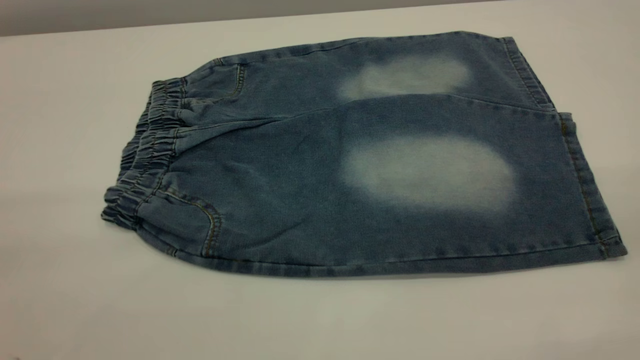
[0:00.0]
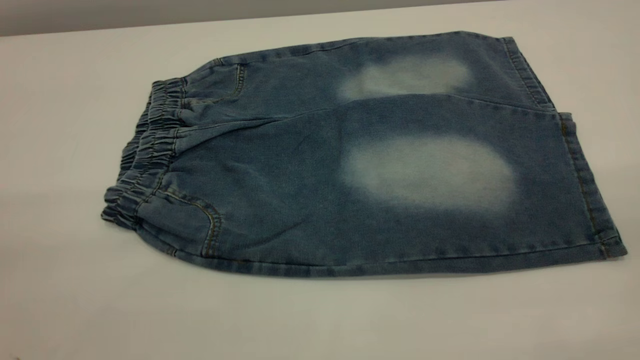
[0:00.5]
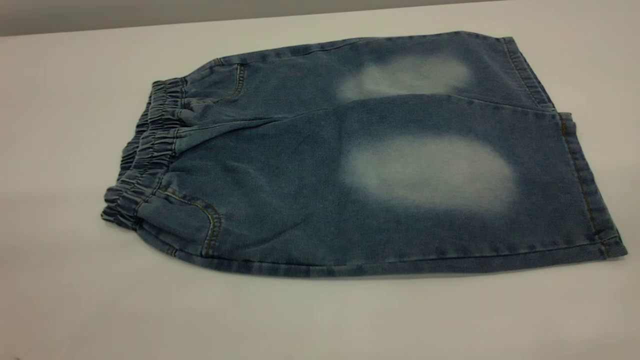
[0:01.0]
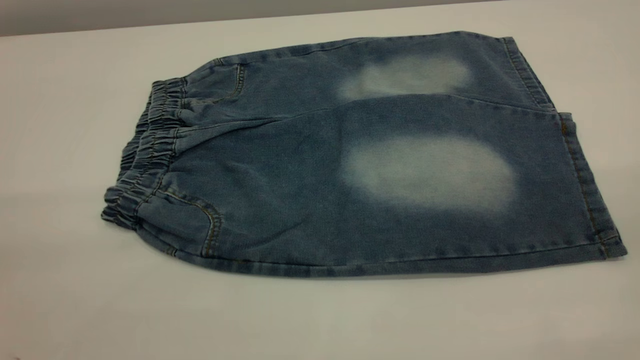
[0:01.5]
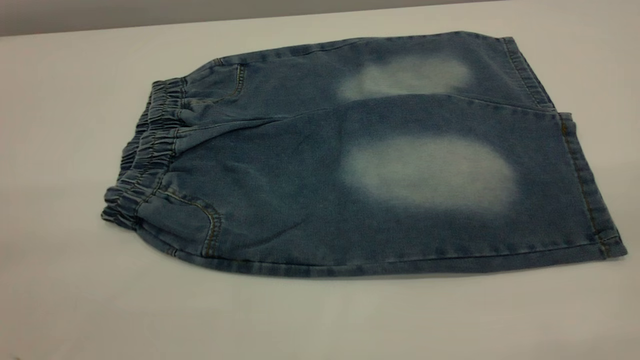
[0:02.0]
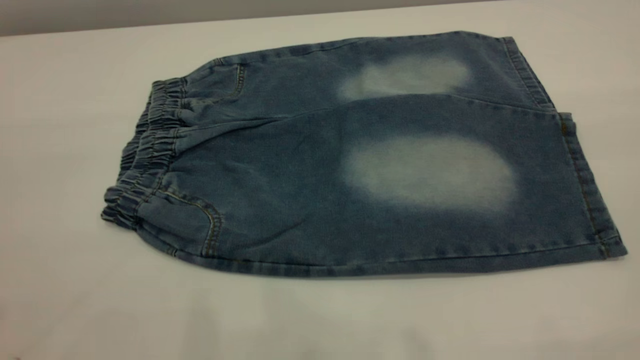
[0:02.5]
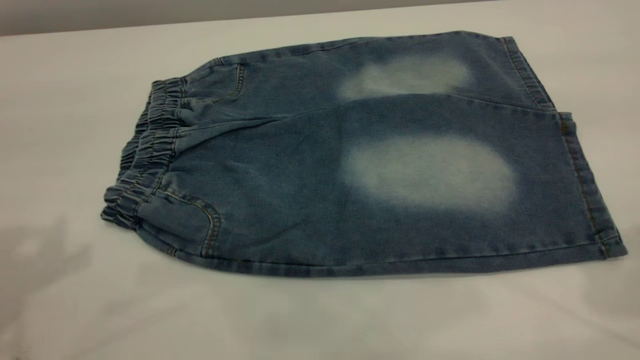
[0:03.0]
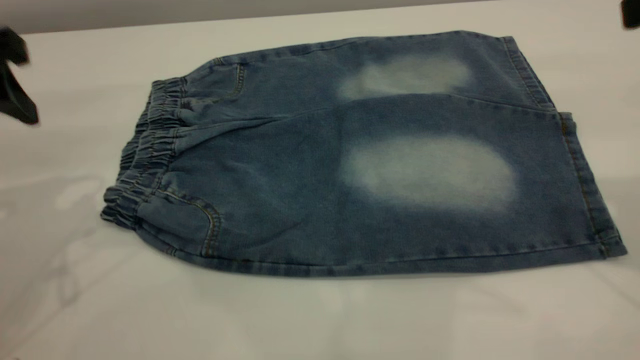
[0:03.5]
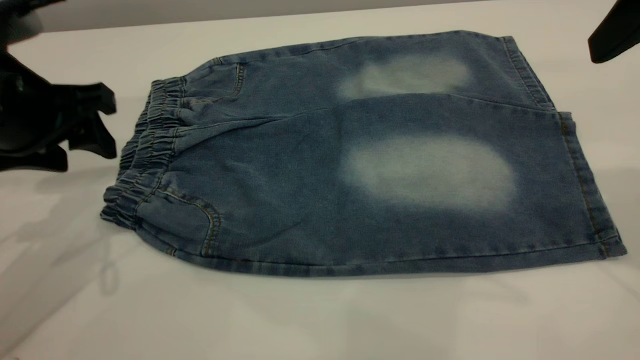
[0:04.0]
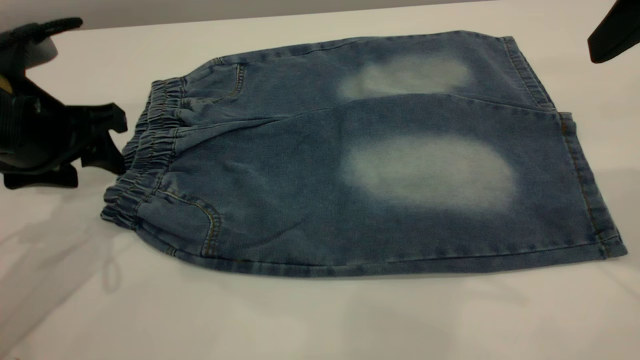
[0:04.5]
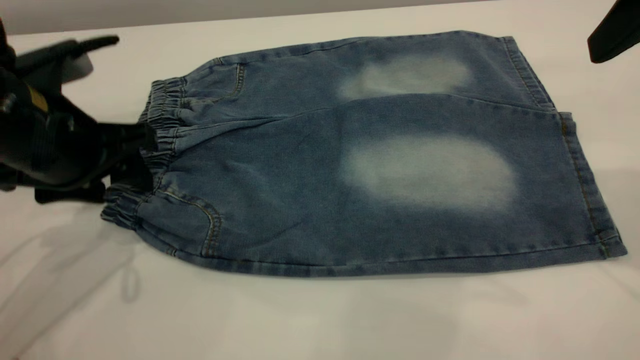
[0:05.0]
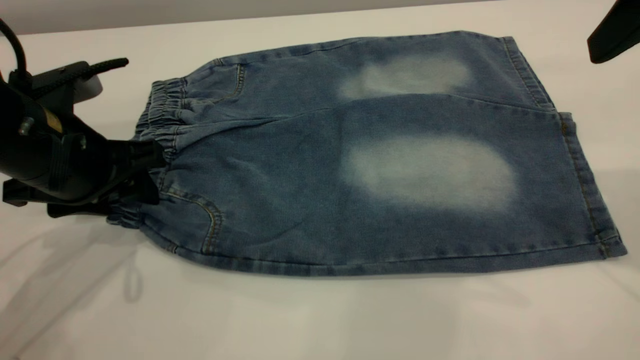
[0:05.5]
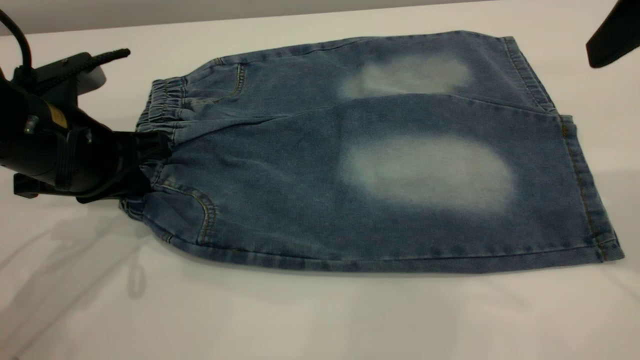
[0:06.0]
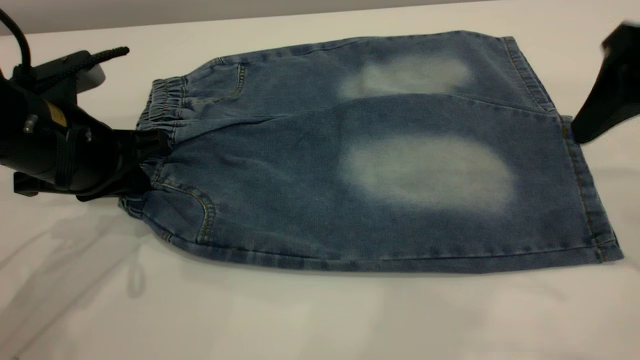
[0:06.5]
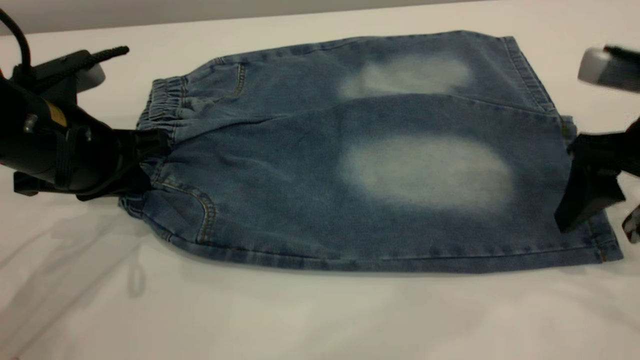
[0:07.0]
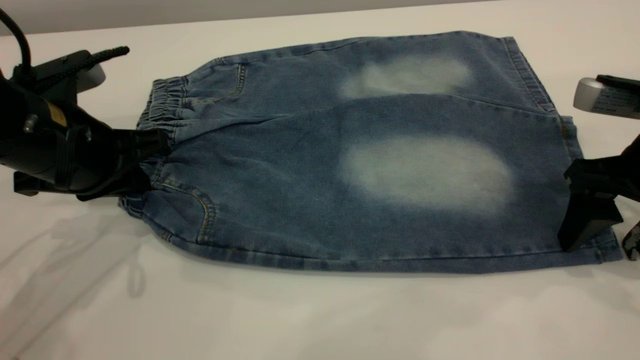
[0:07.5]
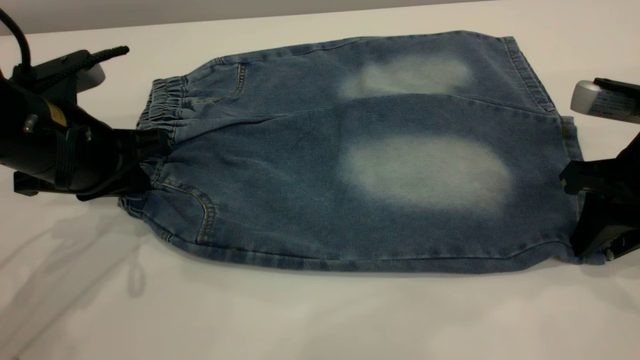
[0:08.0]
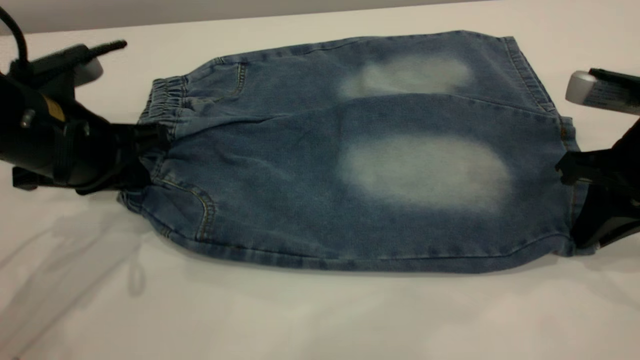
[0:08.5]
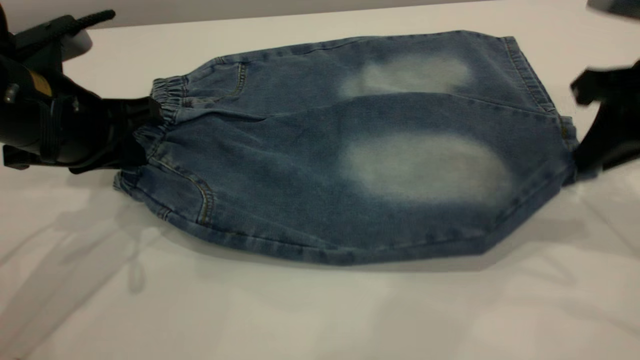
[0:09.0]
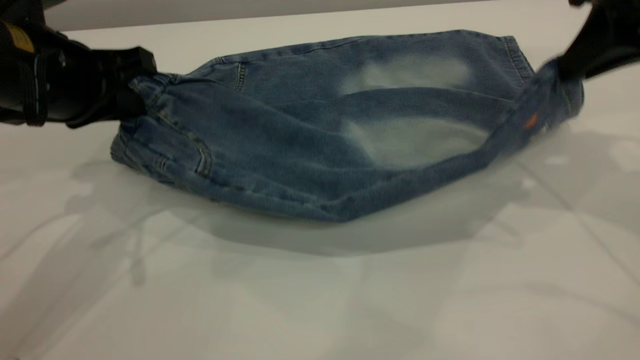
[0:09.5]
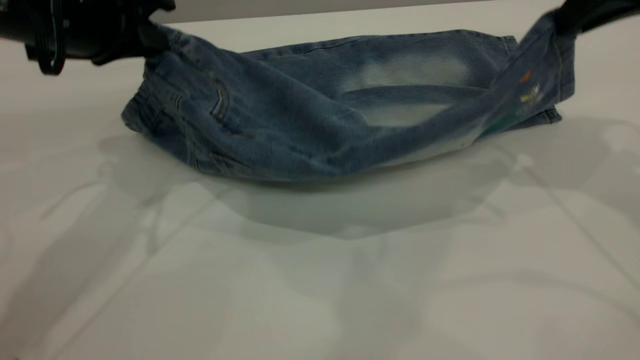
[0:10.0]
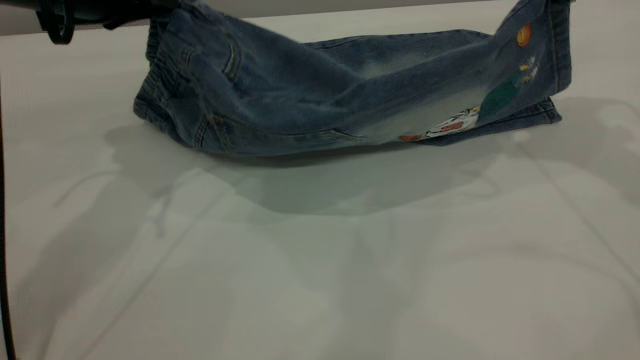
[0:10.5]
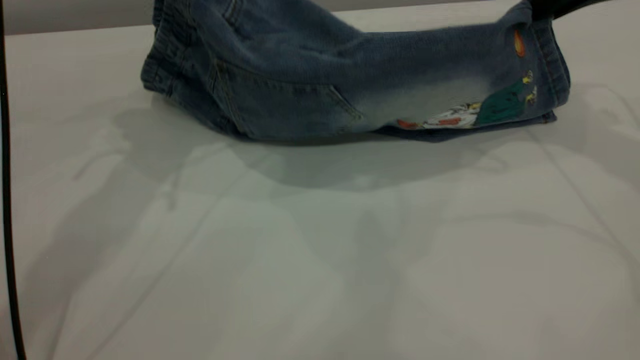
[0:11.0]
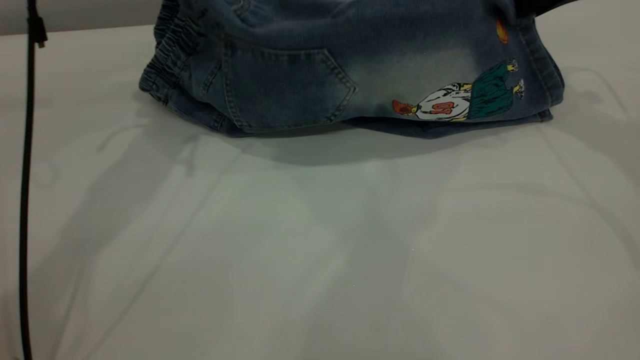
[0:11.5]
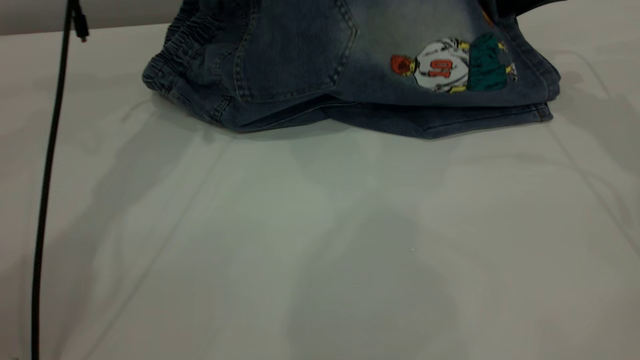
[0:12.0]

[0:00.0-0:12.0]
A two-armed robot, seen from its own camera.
0:00.0 to 0:02.0: Neither gripper changes place.
0:02.0 to 0:04.0: The left gripper moves forward and downward, about 35 cm, while the right gripper goes about 25 cm forward.
0:04.0 to 0:06.0: The left gripper is displaced downward by roughly 5 cm, and closes its fingers.
0:06.0 to 0:08.0: The right gripper goes approximately 15 cm downward, and closes its fingers.
0:08.0 to 0:10.0: The right gripper moves upward and forward, approximately 15 cm, while the left gripper is displaced upward by about 10 cm.
0:10.0 to 0:12.0: The left gripper is displaced forward by some 15 cm. Meanwhile the right gripper travels forward and downward by approximately 15 cm.

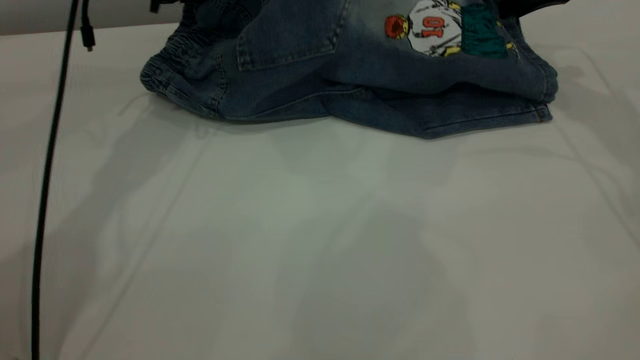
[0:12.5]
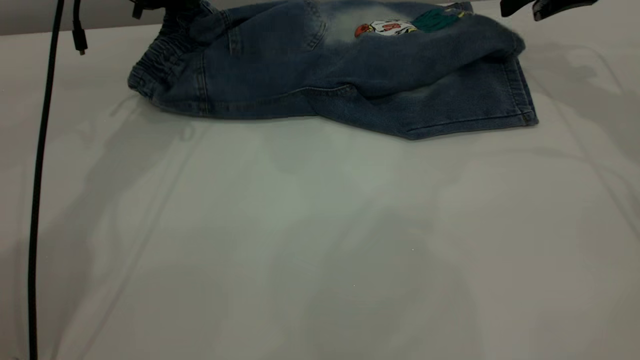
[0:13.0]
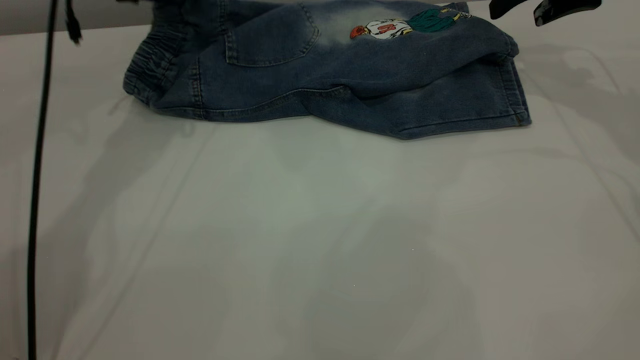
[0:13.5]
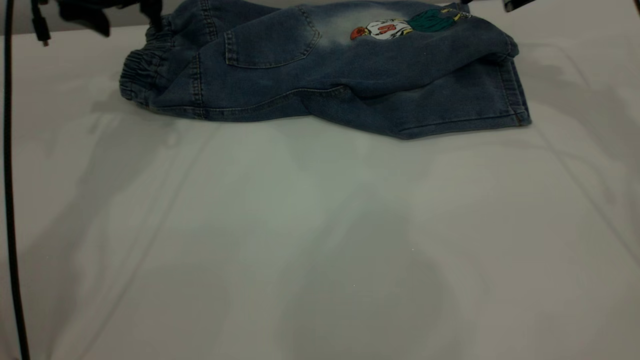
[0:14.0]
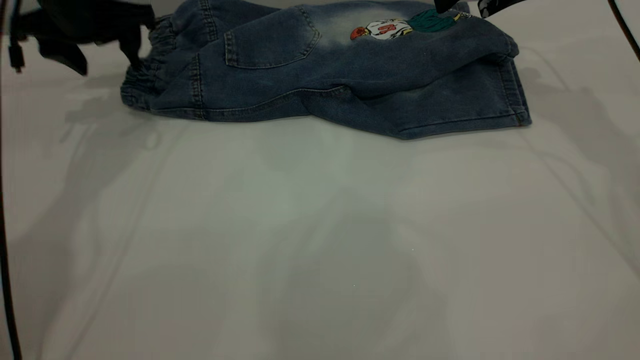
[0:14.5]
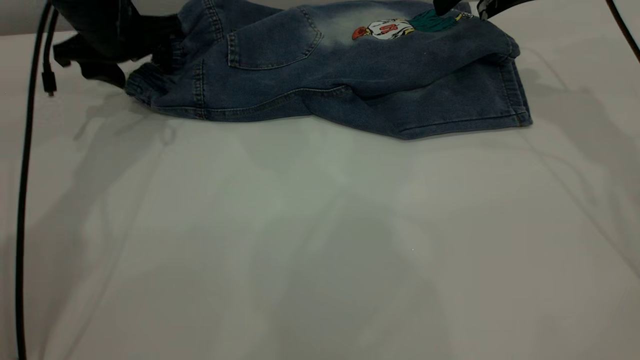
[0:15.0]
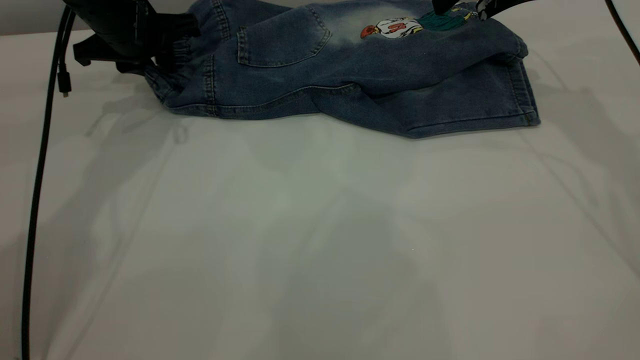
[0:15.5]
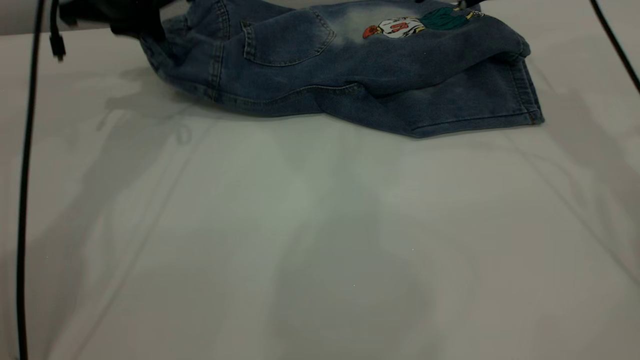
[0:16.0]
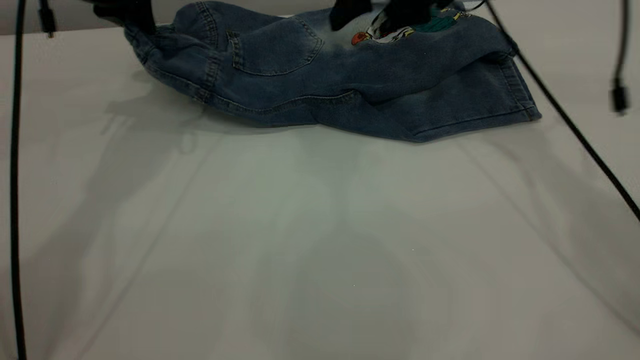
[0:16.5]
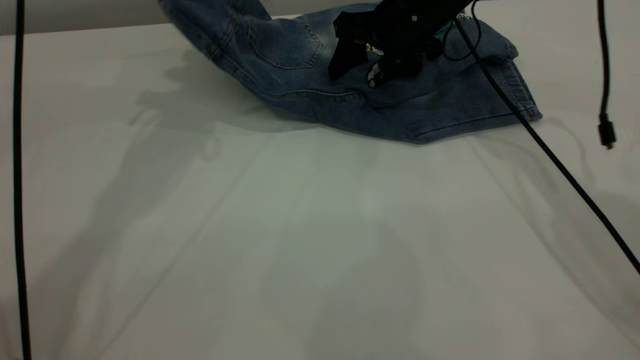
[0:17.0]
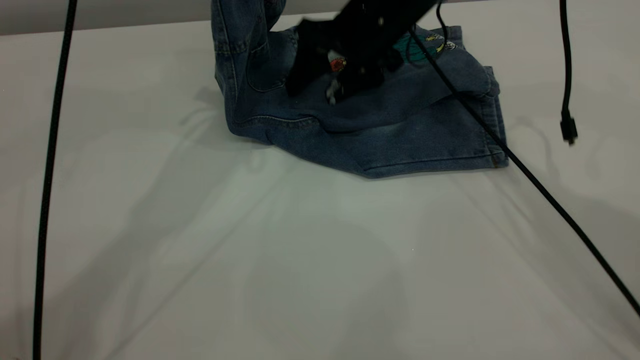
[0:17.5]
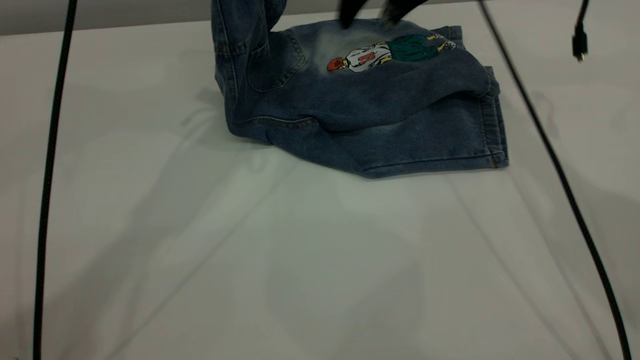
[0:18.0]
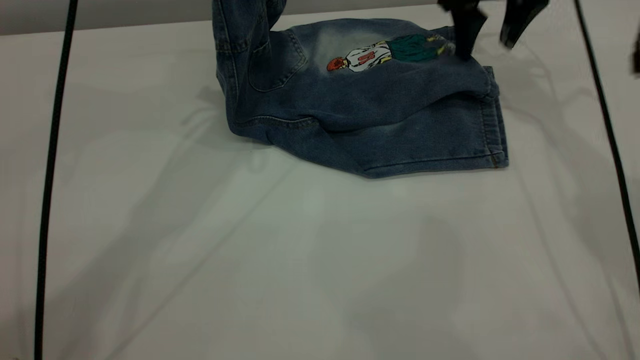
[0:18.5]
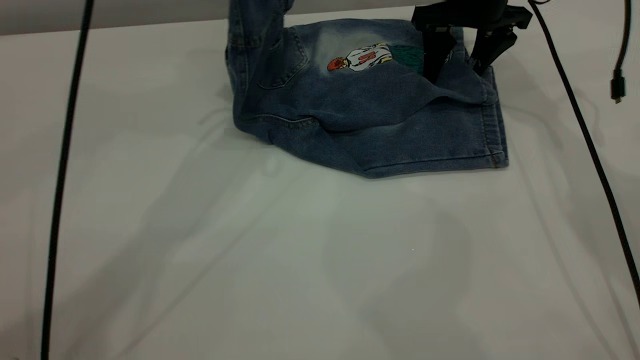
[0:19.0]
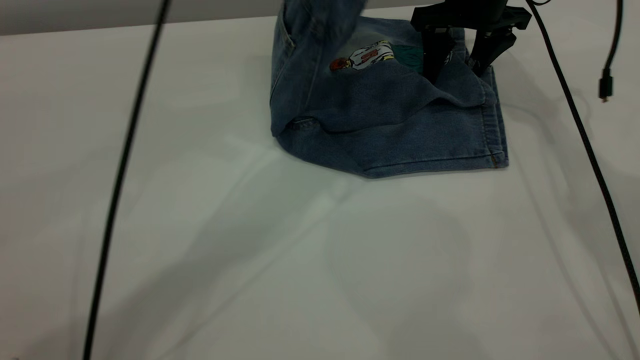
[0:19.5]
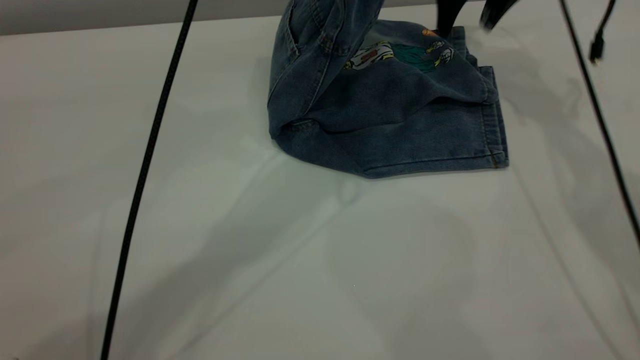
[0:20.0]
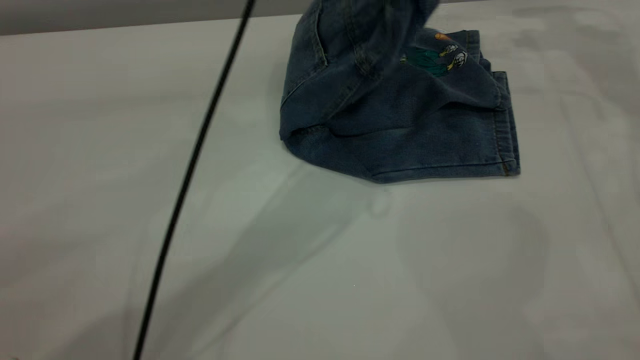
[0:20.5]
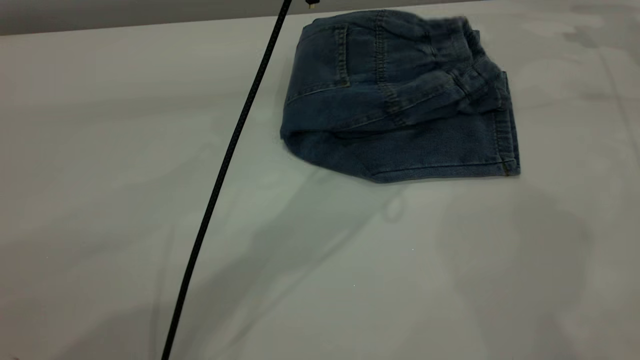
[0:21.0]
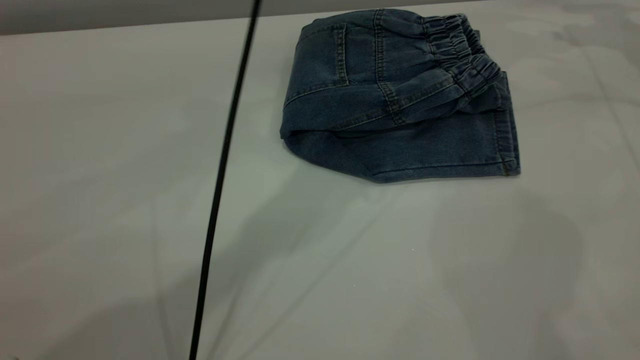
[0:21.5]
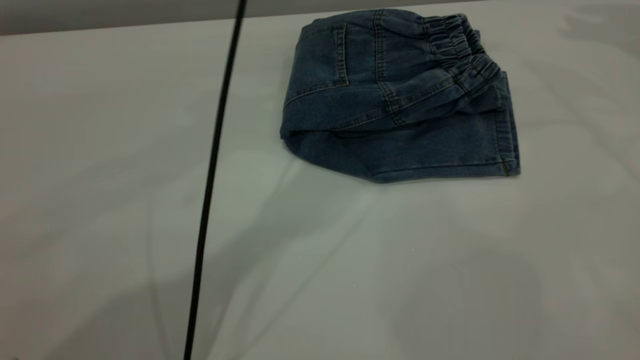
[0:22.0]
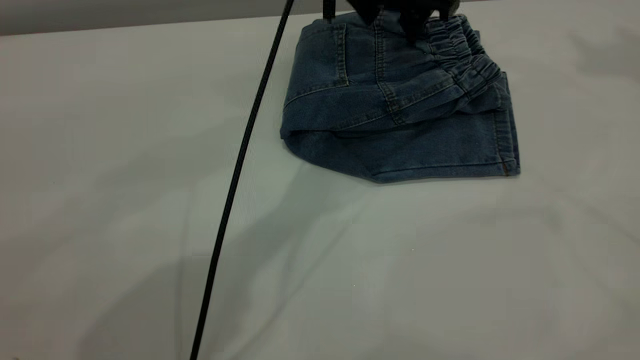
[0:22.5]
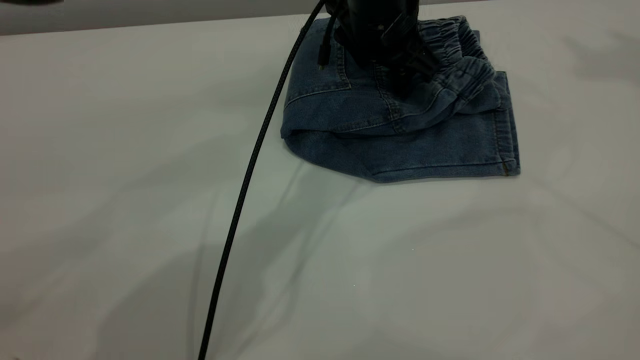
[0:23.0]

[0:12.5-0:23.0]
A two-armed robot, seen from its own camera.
Step, 0:14.0 to 0:21.0: Fold the pants from left to right.
0:12.5 to 0:14.5: The left gripper shifts about 5 cm to the left, and opens up. Meanwhile the right gripper moves roughly 5 cm, and opens up.
0:14.5 to 0:16.5: The right gripper goes about 10 cm to the left, while the left gripper goes about 5 cm upward, and closes.
0:16.5 to 0:19.0: The right gripper moves to the right, some 5 cm. The left gripper shifts some 15 cm to the right and upward.
0:19.0 to 0:21.0: The left gripper moves to the right, roughly 15 cm, and opens up. Meanwhile the right gripper travels to the right and upward by approximately 25 cm.
0:21.0 to 0:23.0: The right gripper shifts roughly 35 cm upward and backward, while the left gripper heads downward and forward, covering some 10 cm.
